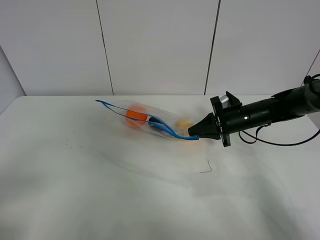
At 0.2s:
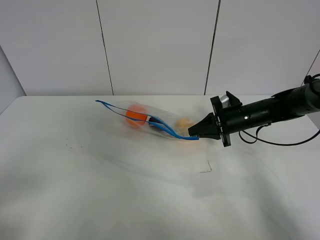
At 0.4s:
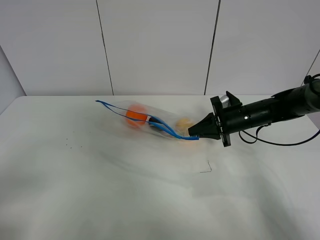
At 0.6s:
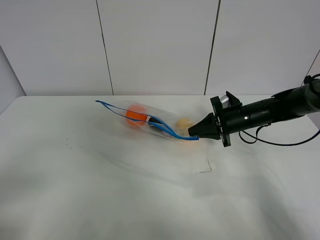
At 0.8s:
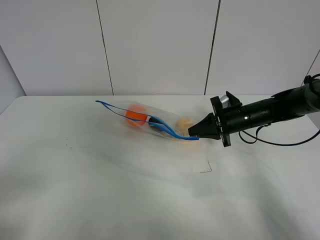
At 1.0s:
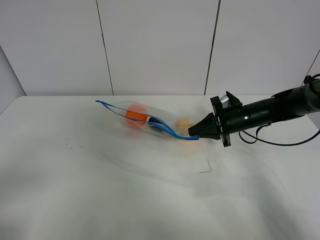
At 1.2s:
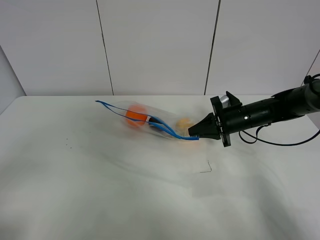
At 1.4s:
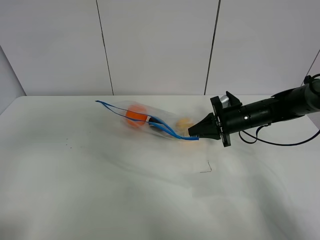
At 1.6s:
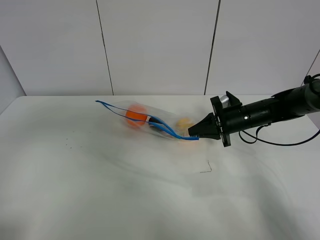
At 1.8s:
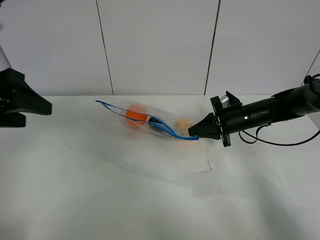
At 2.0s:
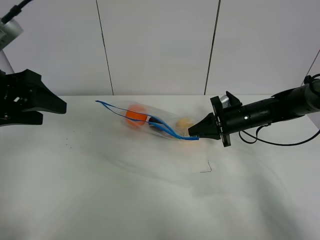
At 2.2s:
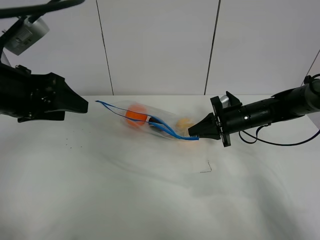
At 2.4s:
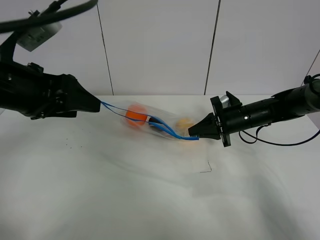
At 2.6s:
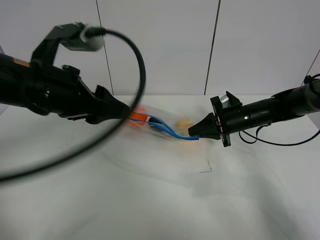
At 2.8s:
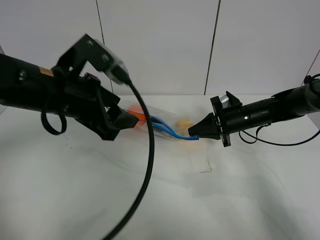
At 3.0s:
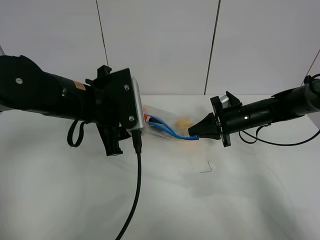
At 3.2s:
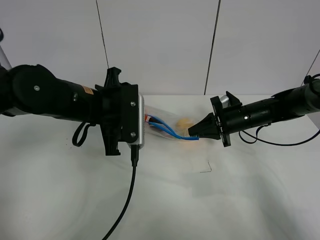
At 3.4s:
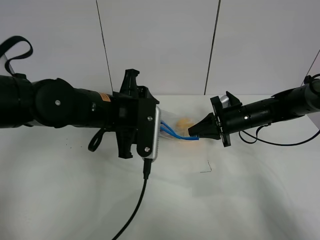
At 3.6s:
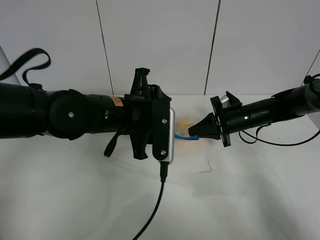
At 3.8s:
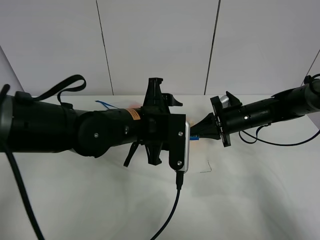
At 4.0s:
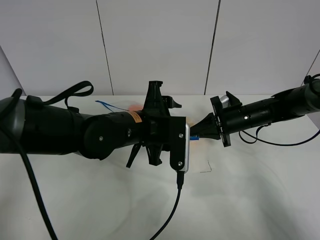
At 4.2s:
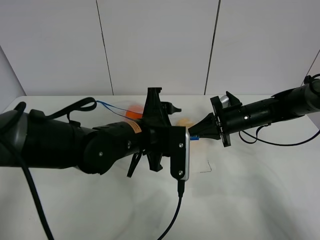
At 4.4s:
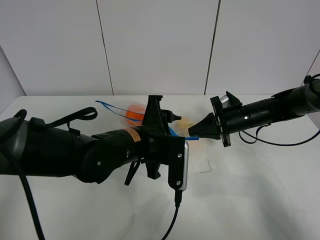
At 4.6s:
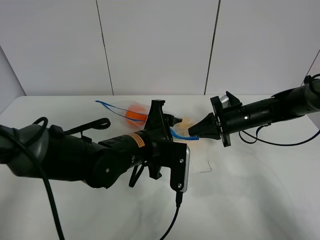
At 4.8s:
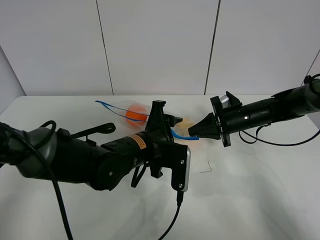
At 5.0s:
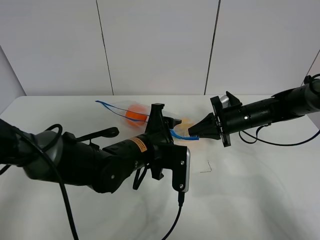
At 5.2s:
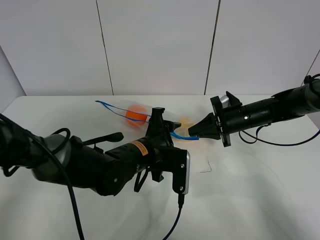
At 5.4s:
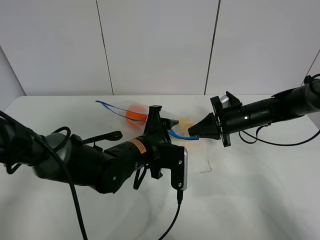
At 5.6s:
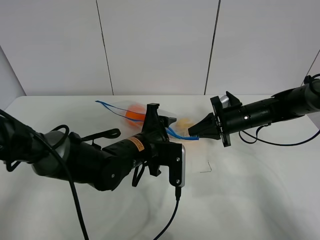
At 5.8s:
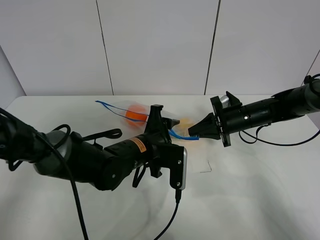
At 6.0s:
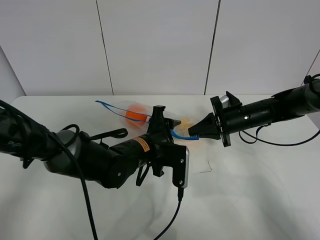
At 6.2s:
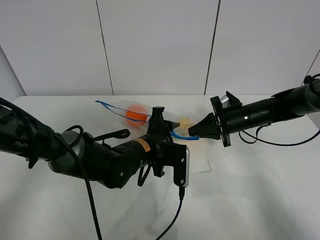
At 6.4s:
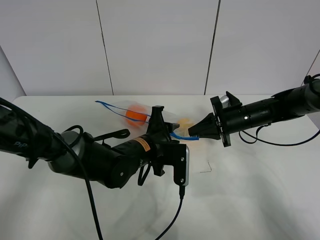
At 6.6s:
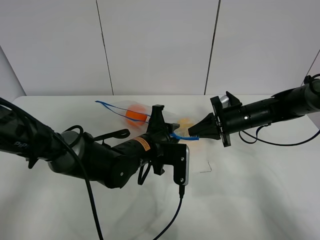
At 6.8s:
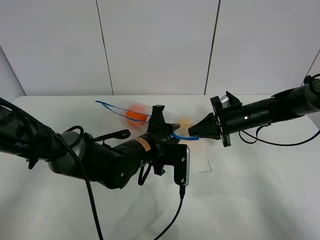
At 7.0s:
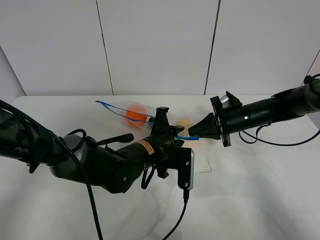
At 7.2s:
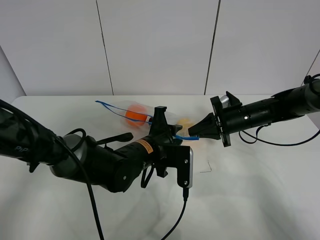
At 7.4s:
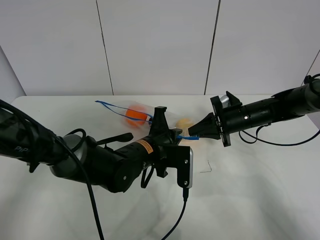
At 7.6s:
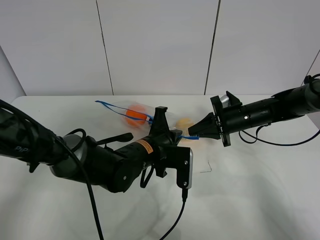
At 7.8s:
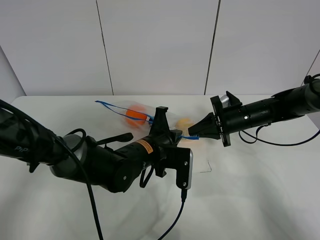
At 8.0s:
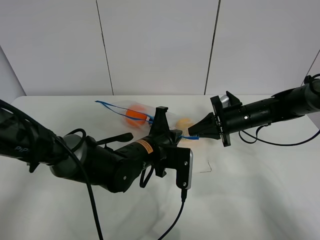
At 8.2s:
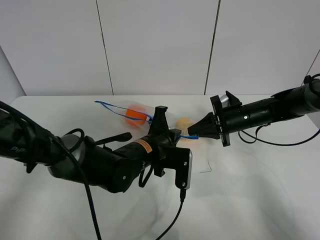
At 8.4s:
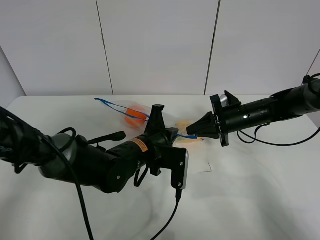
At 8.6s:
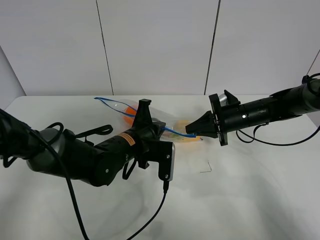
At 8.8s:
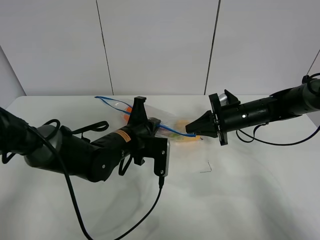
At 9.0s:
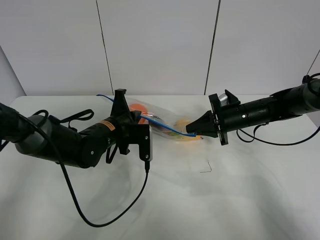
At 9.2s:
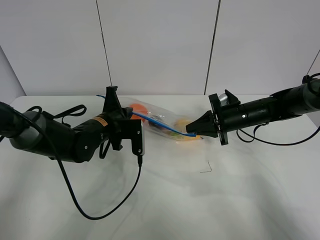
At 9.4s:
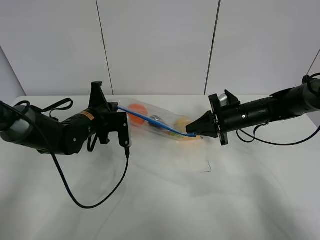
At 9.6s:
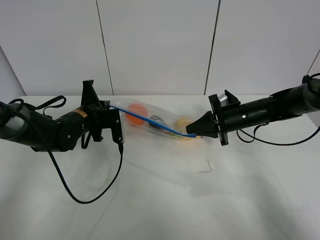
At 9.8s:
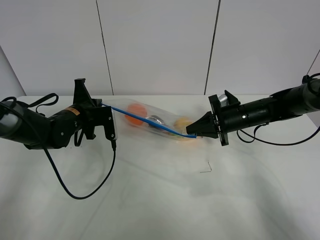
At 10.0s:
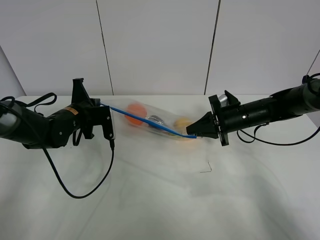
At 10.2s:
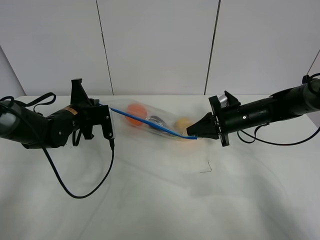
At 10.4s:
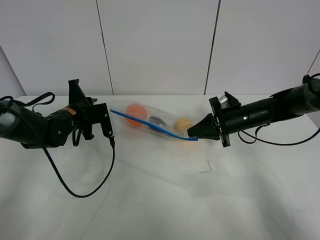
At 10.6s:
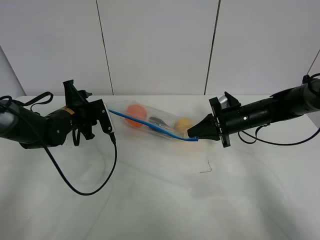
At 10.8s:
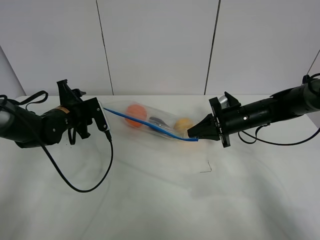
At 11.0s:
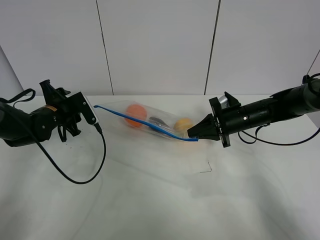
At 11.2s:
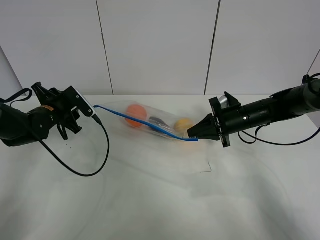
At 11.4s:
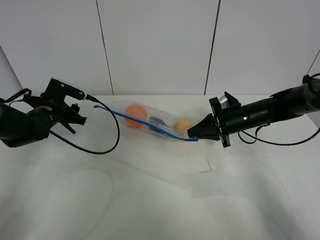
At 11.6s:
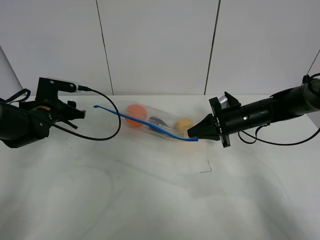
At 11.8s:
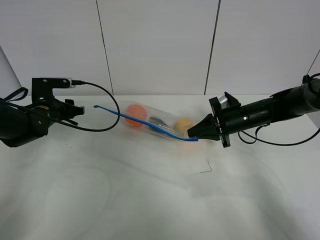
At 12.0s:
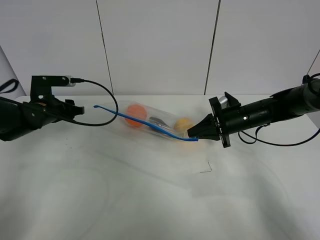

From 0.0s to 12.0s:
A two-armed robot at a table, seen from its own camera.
Step, from 0.4s to 10.4s: Pull the fruit bag with left gripper.
From 0.0s to 1.6s: The left gripper goes some 15 cm forward and upward.
From 1.6s to 3.0s: The left gripper goes some 20 cm to the right, forward and downward.
From 3.0s to 4.4s: The left gripper shifts approximately 10 cm to the right and downward.
From 4.4s to 6.0s: The left gripper is displaced downward by roughly 5 cm.
From 6.0s to 7.6s: The left gripper closes up.
From 7.6s to 9.0s: The left gripper is displaced to the left and forward by some 10 cm.
From 9.0s to 10.4s: The left gripper goes roughly 10 cm to the left, and opens its fingers.
From 10.4s to 12.0s: The left gripper moves to the left, about 10 cm, and opens its fingers.

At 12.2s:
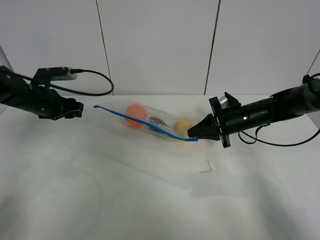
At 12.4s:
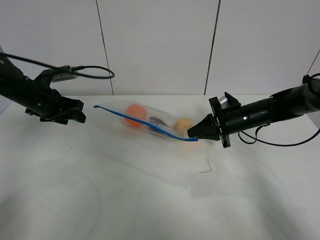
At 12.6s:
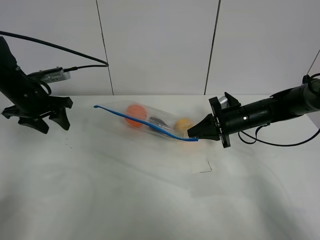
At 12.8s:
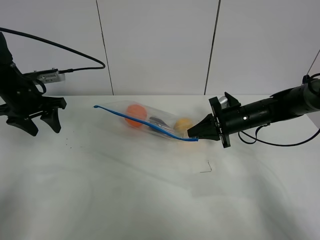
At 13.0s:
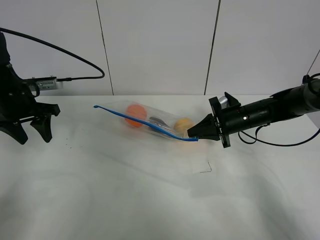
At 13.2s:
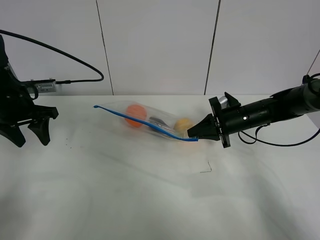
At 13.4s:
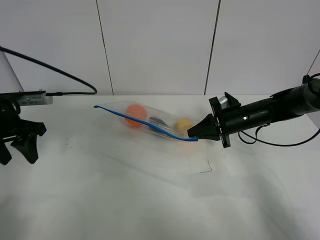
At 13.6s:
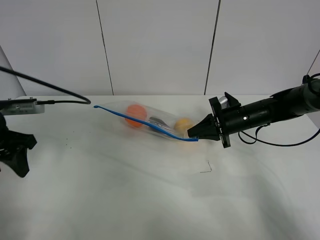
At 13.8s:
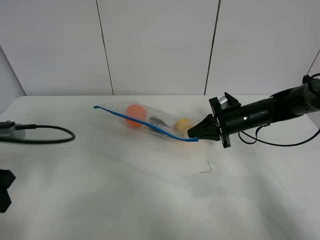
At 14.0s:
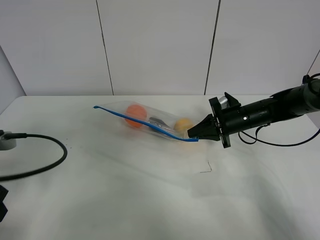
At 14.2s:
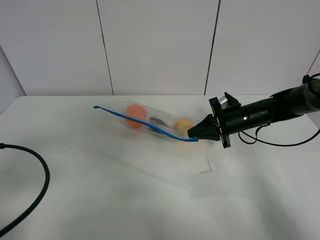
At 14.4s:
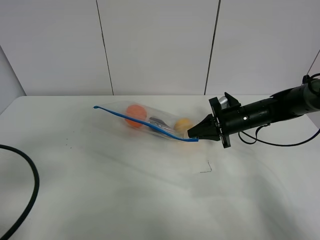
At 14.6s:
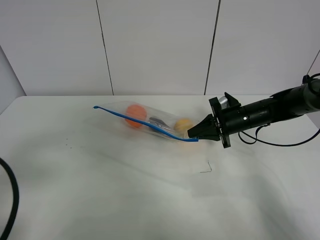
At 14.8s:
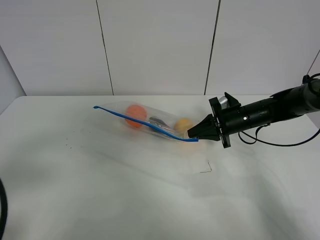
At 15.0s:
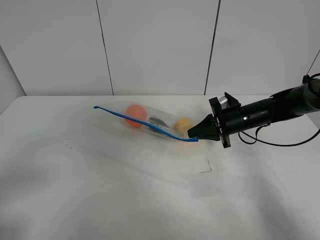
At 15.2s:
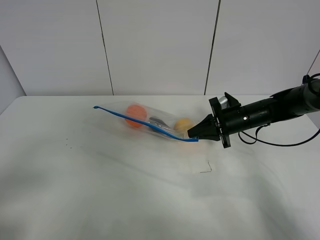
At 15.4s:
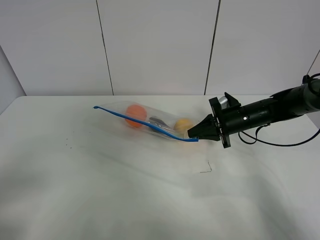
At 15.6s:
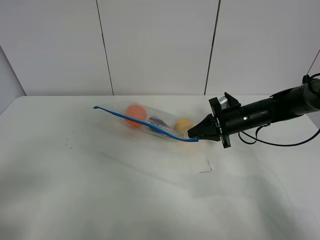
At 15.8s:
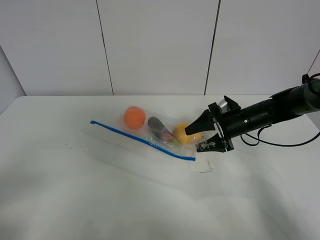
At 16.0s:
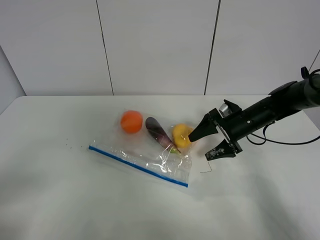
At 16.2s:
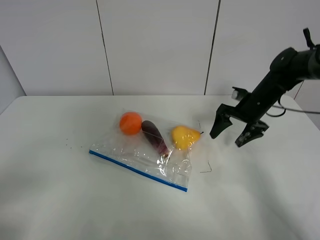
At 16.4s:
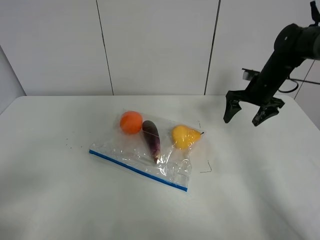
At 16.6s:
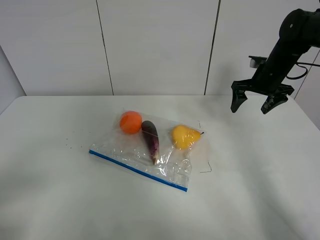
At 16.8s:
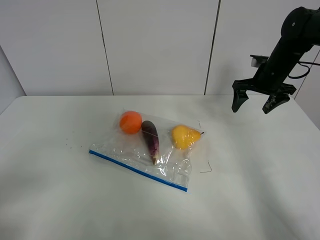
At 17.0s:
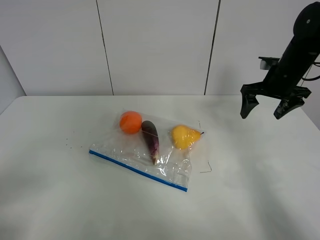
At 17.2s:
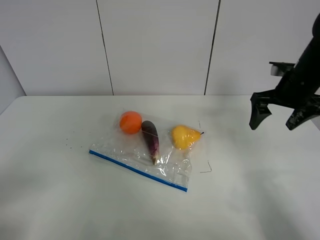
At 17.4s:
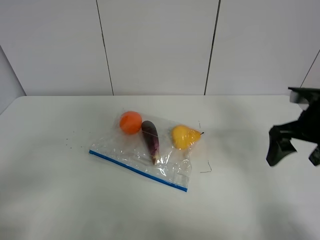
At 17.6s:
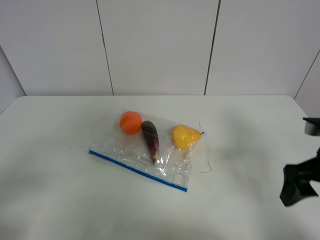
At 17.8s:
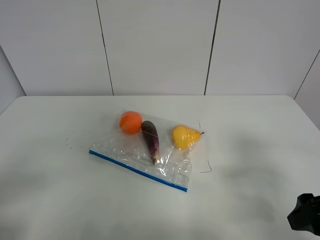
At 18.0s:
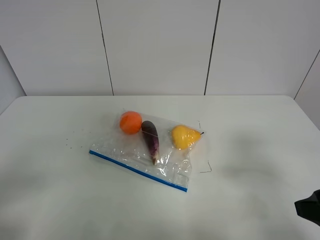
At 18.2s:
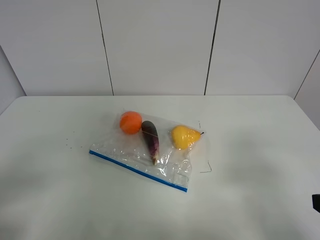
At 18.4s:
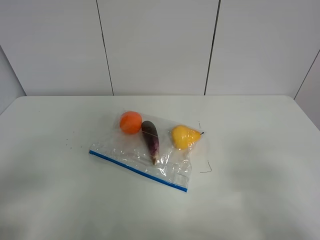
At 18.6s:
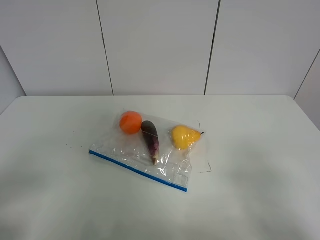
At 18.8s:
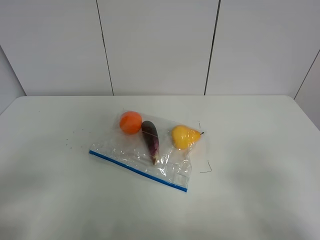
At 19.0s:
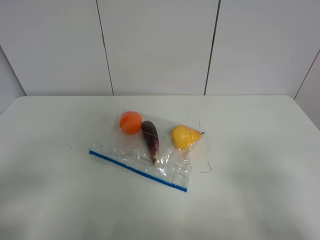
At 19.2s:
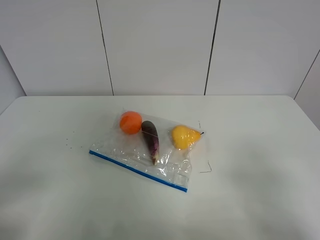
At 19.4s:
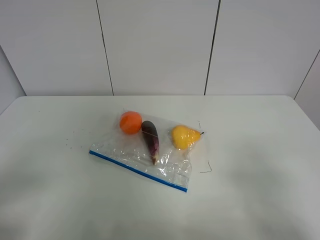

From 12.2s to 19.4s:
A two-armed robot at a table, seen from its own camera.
From 12.2s to 13.6s: The left gripper is displaced backward by approximately 15 cm.
From 13.6s to 15.0s: The left gripper heads backward, covering roughly 20 cm.
From 15.0s to 16.6s: The right gripper shifts roughly 15 cm upward, forward and to the right, and opens up.
From 16.6s to 18.0s: The right gripper moves backward, about 35 cm.
From 18.0s to 19.4s: The right gripper goes some 10 cm backward.

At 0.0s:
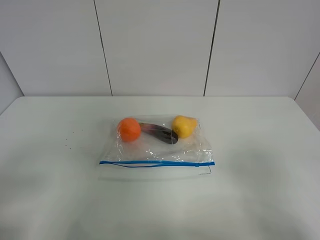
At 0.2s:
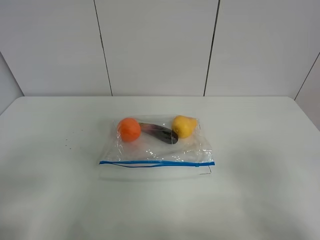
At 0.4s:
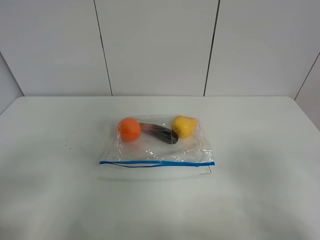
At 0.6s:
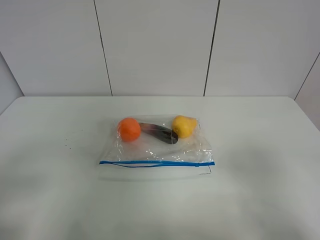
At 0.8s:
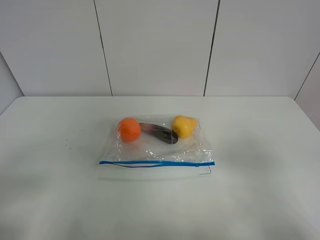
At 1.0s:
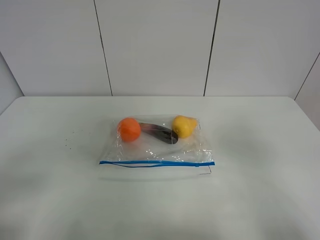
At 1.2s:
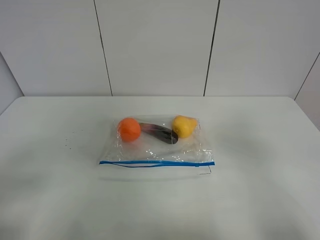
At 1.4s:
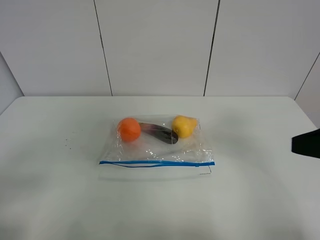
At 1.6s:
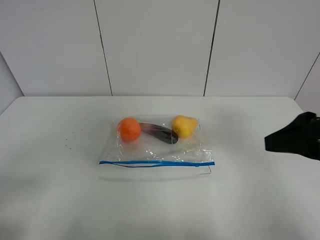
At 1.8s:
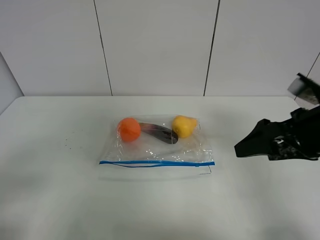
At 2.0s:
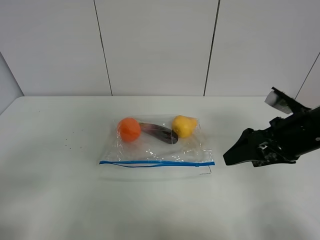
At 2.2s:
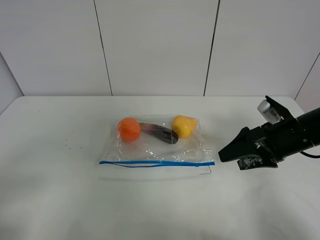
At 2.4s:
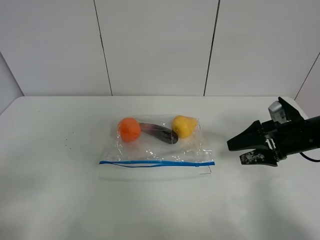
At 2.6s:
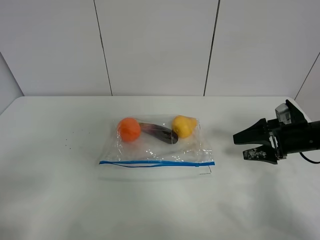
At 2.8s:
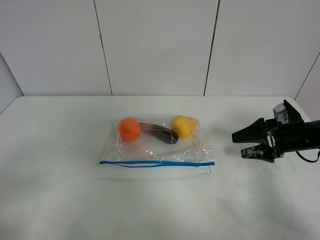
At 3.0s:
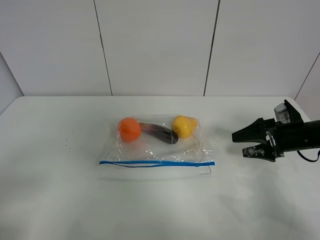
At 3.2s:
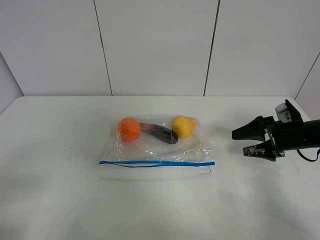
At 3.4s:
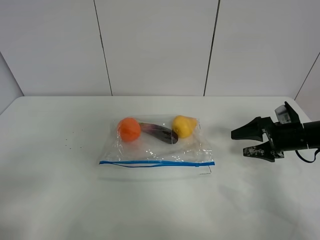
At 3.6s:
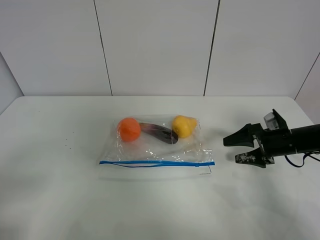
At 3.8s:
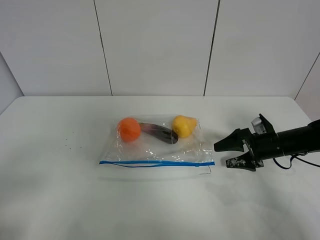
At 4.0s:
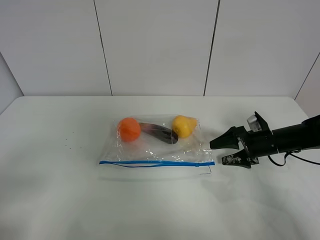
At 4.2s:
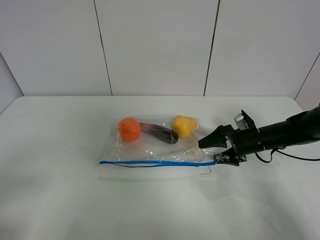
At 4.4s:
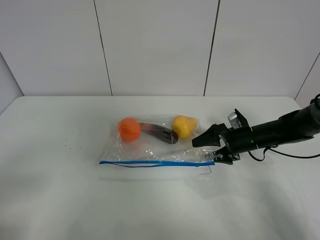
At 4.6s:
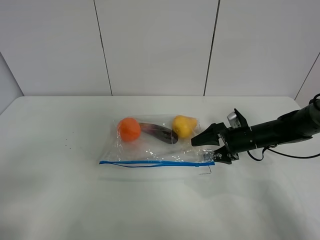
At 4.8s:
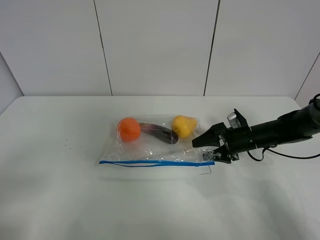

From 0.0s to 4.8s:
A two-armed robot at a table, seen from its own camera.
From 0.0s to 1.6s: The right gripper is displaced forward by some 15 cm.
From 1.6s to 3.2s: The right gripper moves downward, forward and to the right, some 25 cm.
From 3.2s to 4.8s: The right gripper is displaced to the left and downward by roughly 10 cm.
